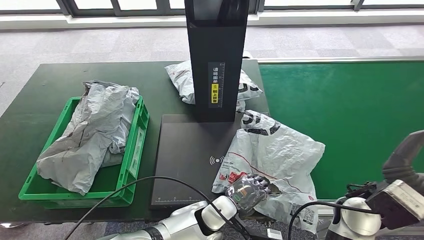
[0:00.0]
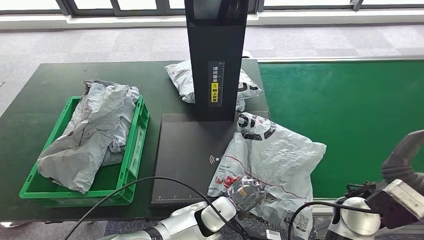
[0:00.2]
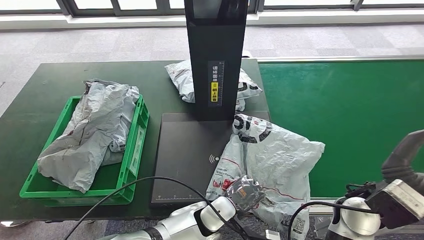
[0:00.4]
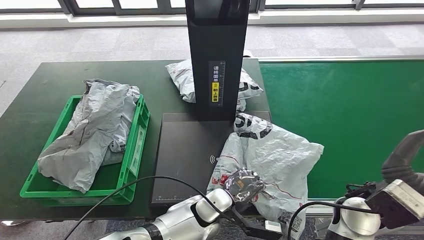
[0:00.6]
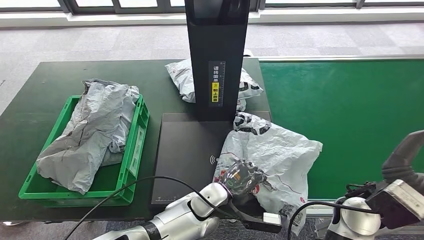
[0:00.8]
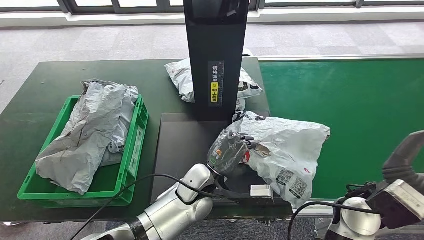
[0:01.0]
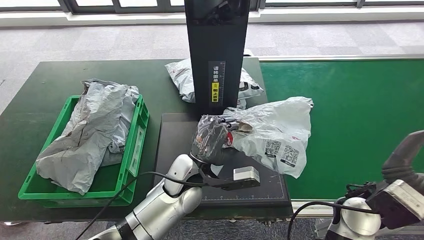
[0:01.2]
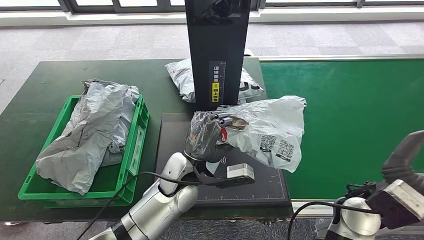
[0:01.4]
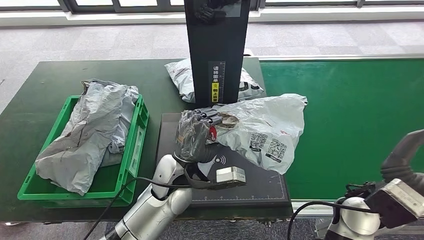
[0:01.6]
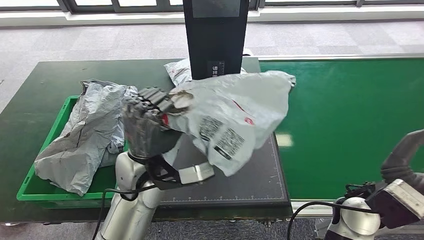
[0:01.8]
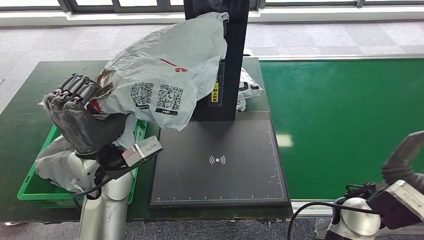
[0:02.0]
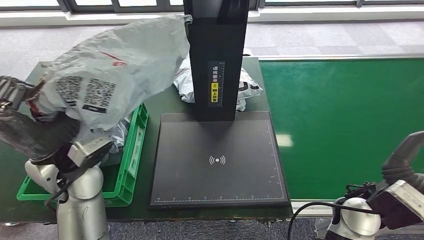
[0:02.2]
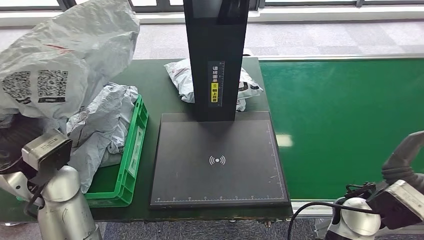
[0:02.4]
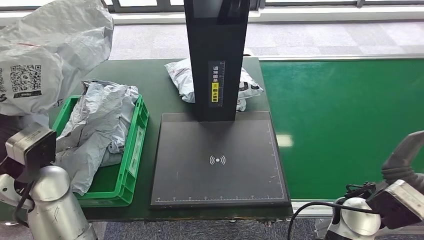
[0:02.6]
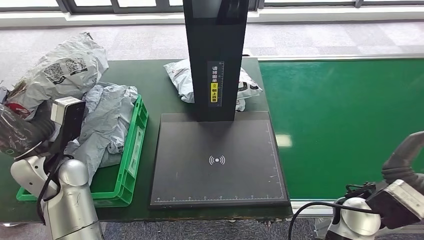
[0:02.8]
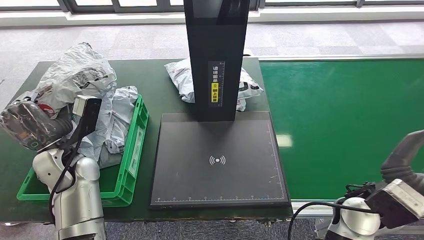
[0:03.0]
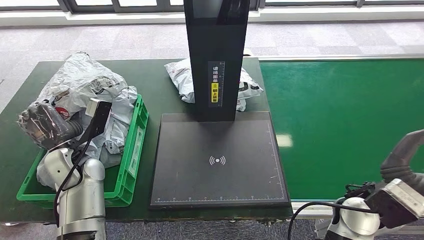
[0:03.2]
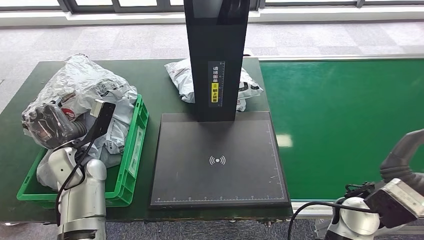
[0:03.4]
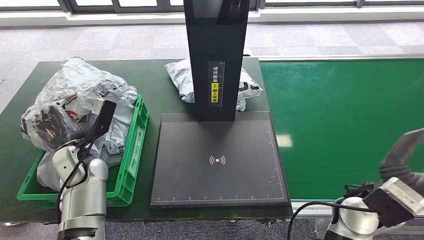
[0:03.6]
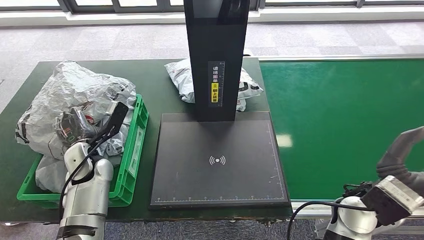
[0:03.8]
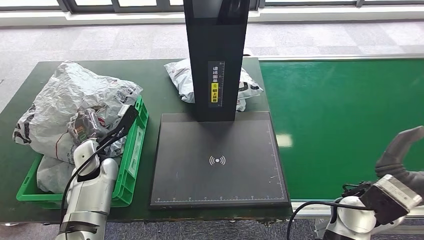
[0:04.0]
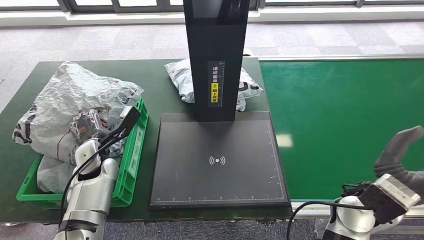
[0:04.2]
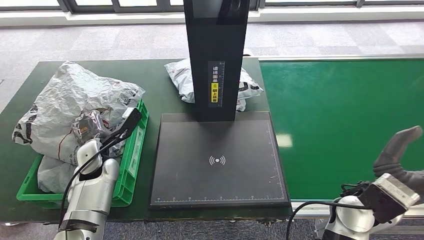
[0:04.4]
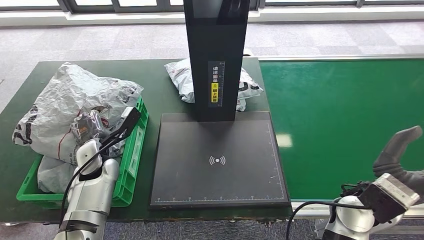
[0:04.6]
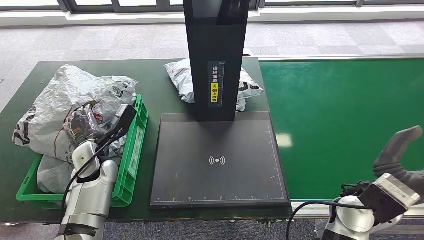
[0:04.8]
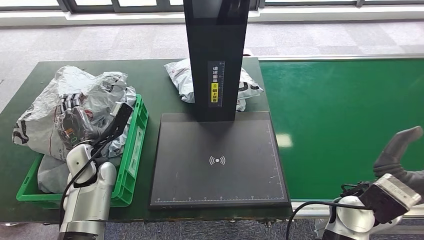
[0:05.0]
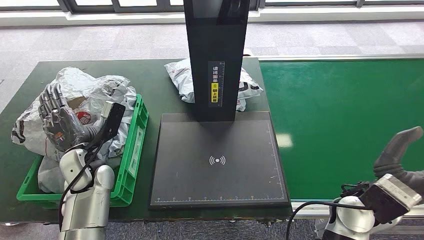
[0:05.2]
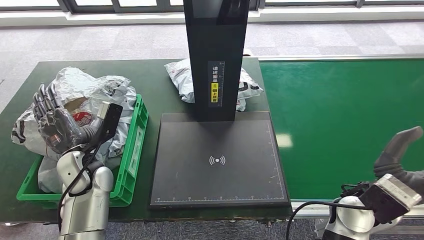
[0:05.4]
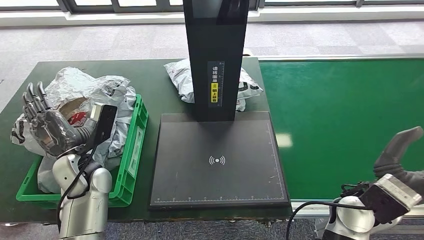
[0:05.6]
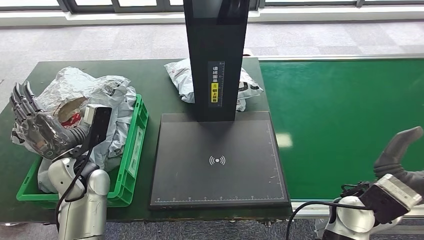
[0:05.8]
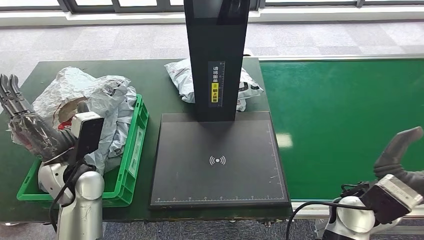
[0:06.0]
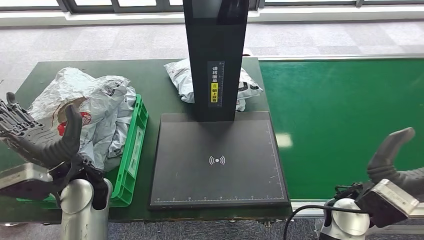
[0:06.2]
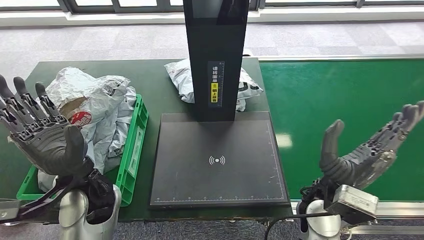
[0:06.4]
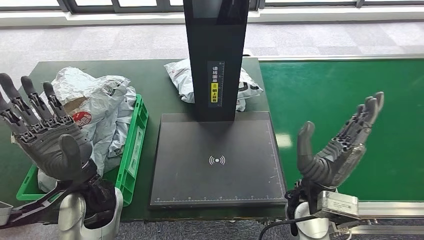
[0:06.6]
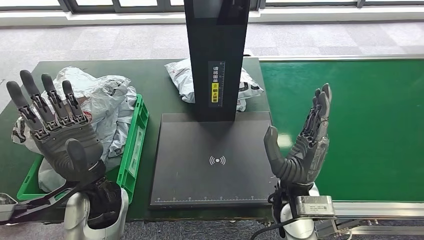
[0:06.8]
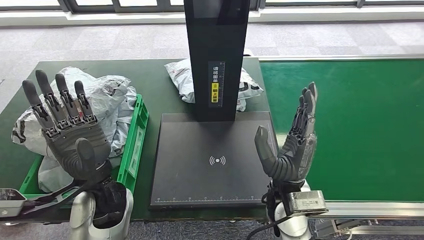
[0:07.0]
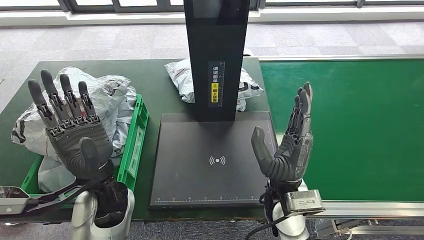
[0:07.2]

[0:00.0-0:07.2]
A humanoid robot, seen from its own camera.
Step, 0:00.0 to 0:02.0: Pick up the parcel from the inbound machine.
Step, 0:02.2 to 0:07.2: Place the parcel into the delivery box.
0:02.8 to 0:04.4: The left hand travels downward and forward by about 10 cm.
0:04.4 to 0:05.8: The left hand travels upward and backward by roughly 5 cm.
0:05.8 to 0:07.2: The right hand heads to the left, covering about 15 cm, while the left hand moves to the right, some 10 cm.
